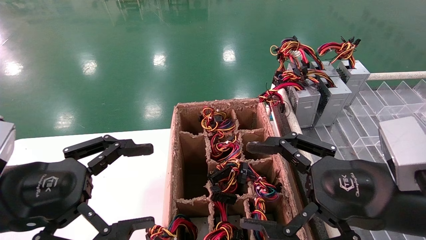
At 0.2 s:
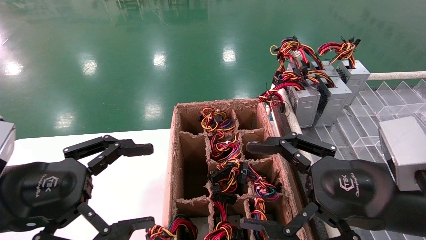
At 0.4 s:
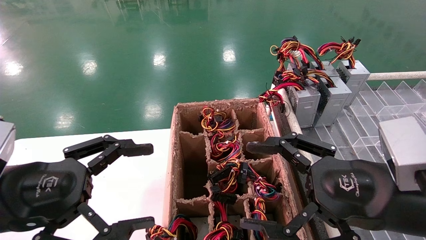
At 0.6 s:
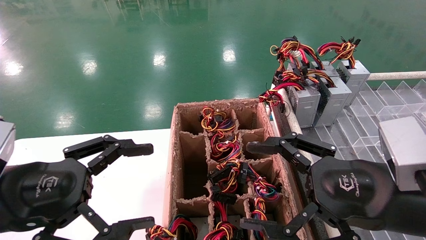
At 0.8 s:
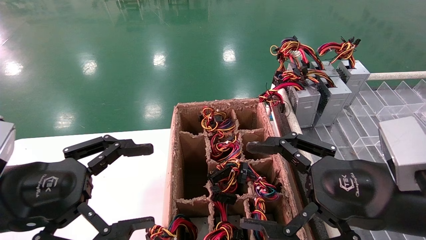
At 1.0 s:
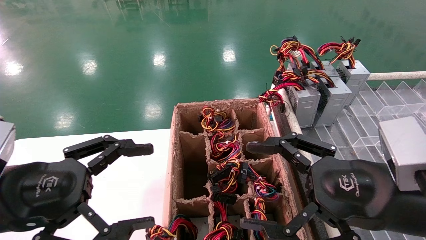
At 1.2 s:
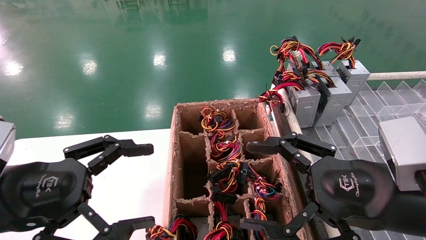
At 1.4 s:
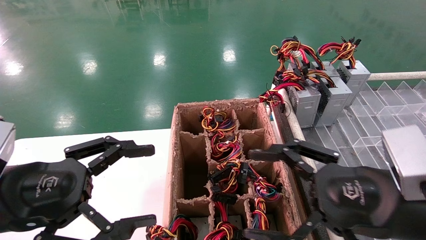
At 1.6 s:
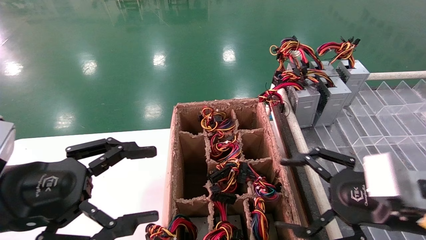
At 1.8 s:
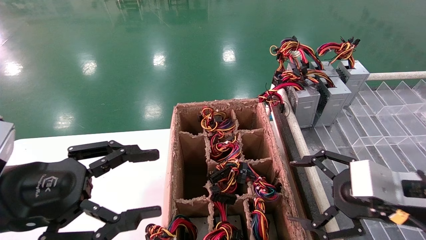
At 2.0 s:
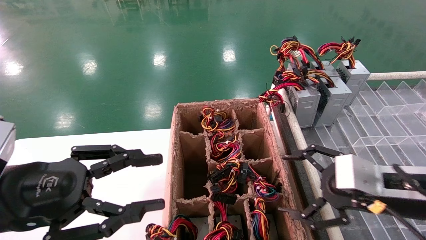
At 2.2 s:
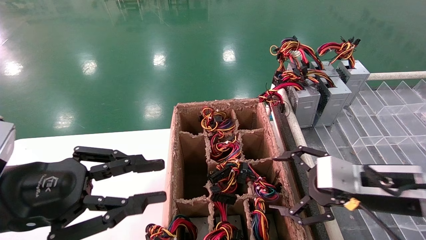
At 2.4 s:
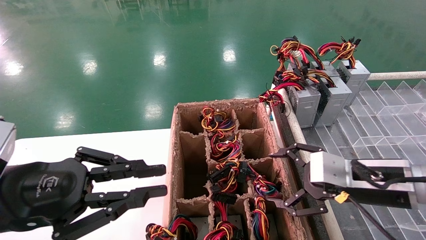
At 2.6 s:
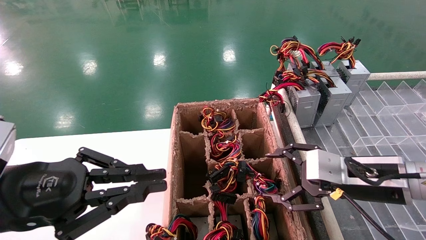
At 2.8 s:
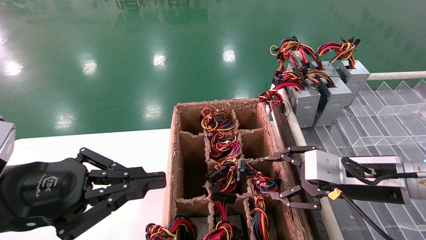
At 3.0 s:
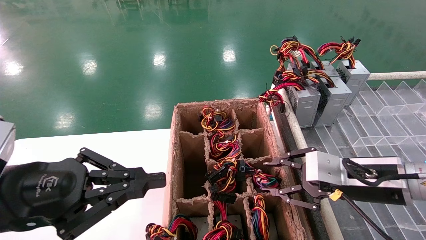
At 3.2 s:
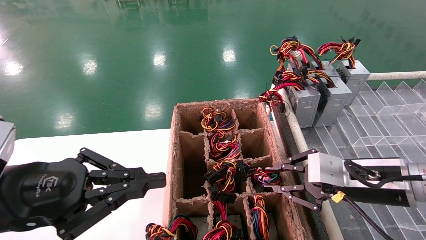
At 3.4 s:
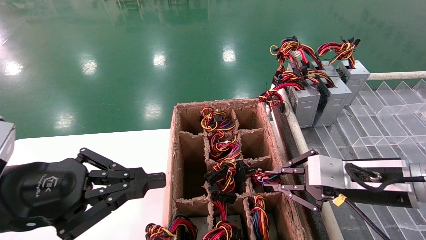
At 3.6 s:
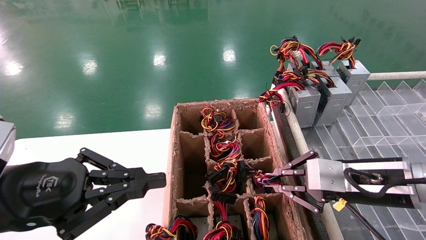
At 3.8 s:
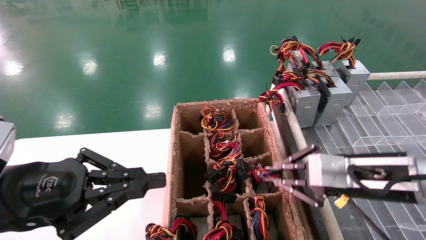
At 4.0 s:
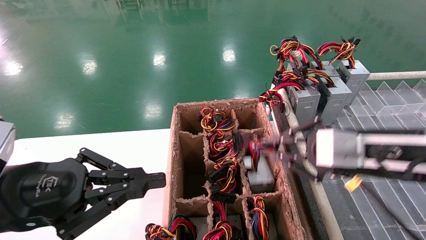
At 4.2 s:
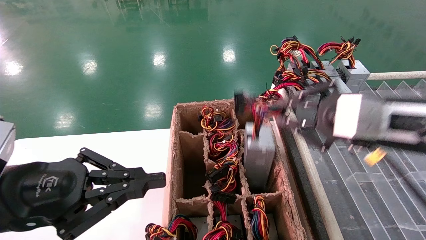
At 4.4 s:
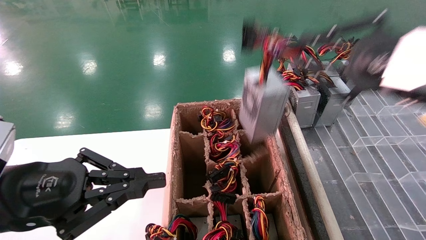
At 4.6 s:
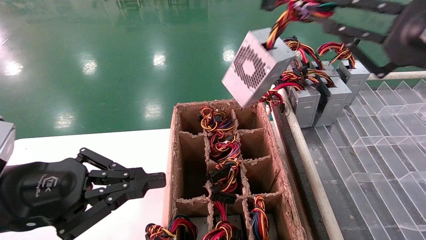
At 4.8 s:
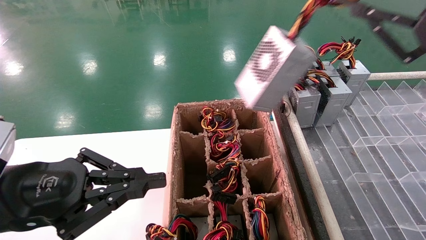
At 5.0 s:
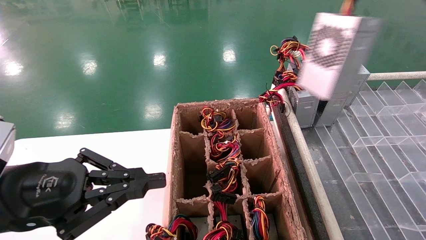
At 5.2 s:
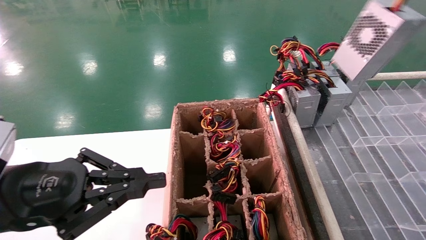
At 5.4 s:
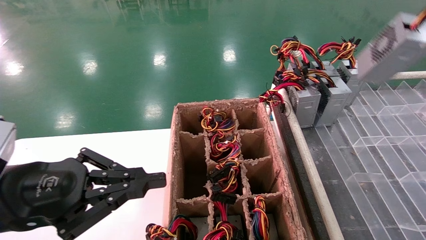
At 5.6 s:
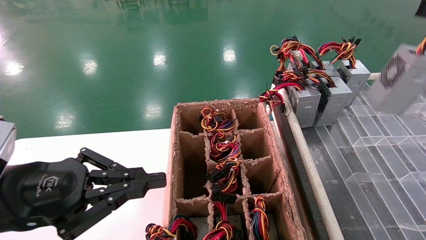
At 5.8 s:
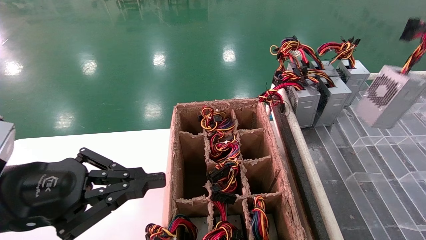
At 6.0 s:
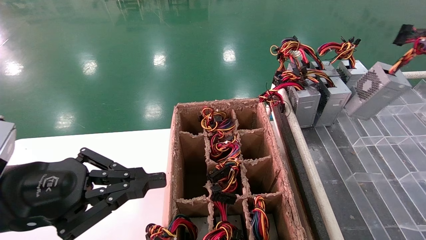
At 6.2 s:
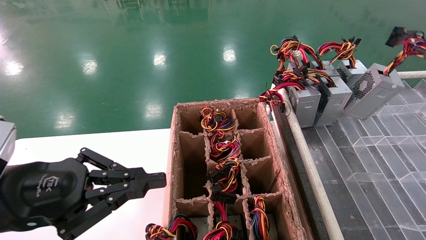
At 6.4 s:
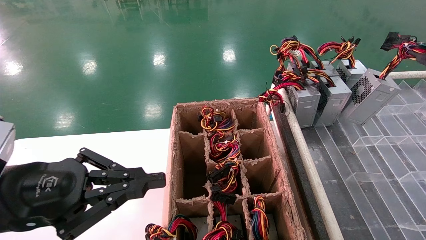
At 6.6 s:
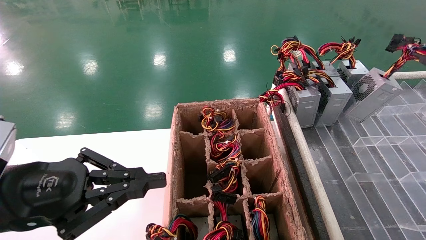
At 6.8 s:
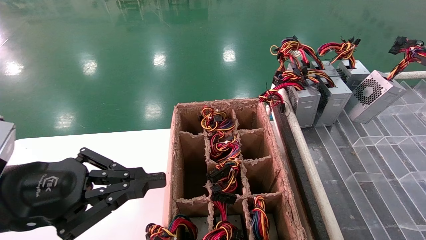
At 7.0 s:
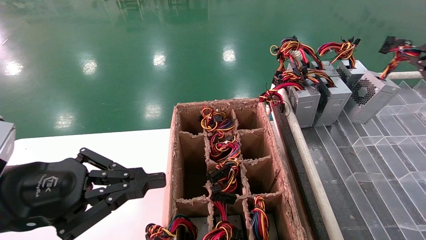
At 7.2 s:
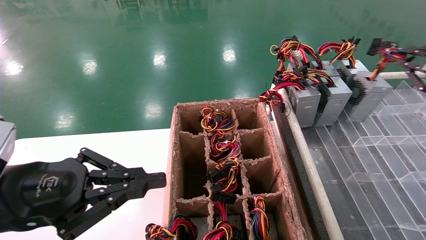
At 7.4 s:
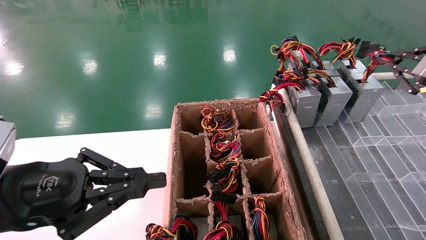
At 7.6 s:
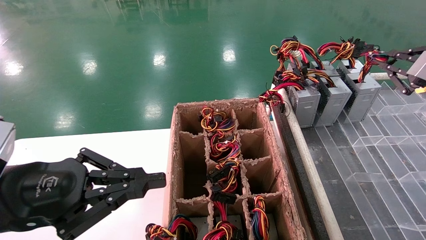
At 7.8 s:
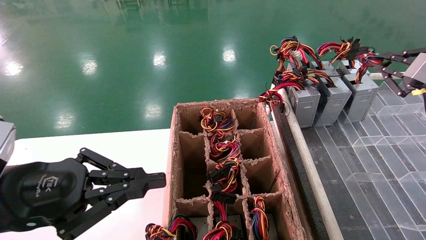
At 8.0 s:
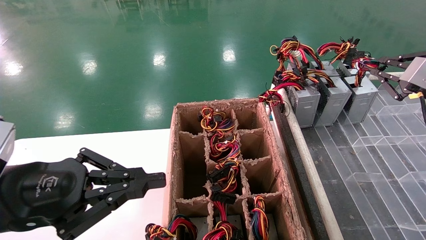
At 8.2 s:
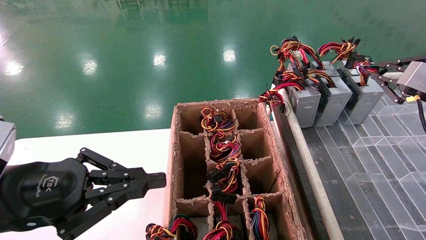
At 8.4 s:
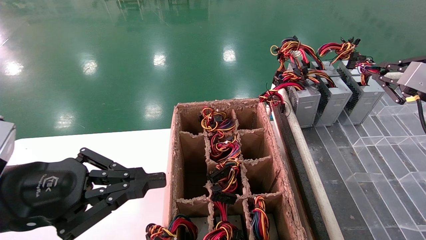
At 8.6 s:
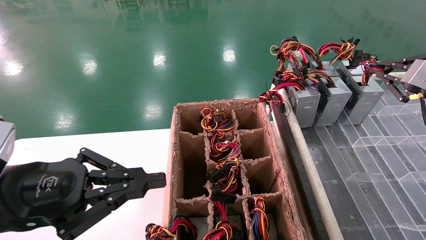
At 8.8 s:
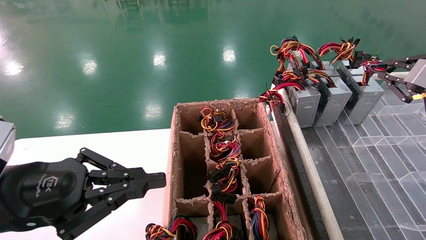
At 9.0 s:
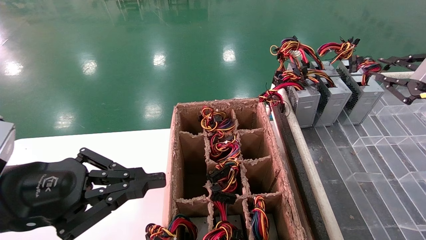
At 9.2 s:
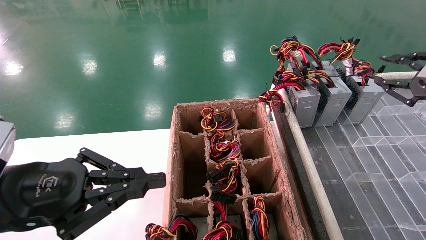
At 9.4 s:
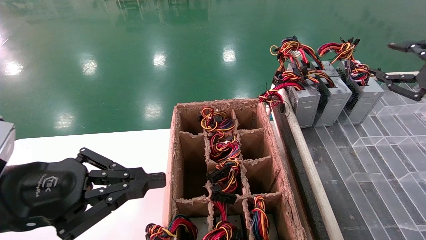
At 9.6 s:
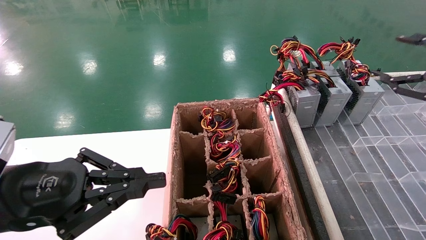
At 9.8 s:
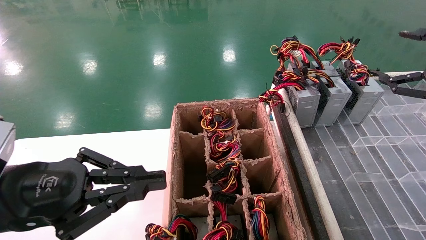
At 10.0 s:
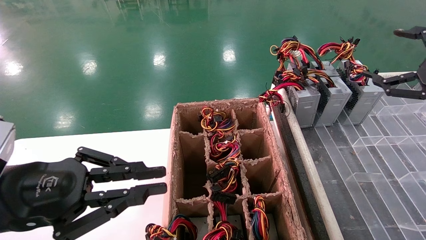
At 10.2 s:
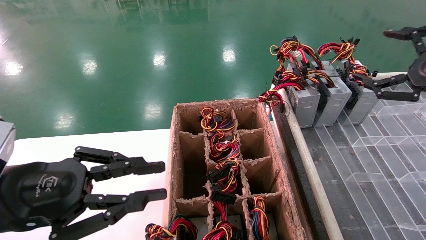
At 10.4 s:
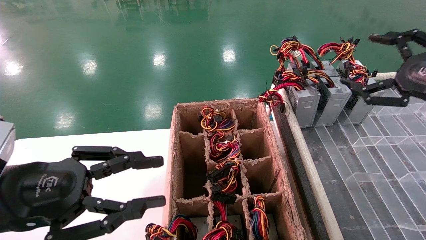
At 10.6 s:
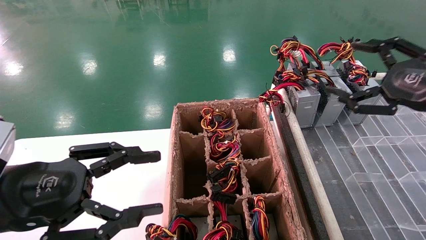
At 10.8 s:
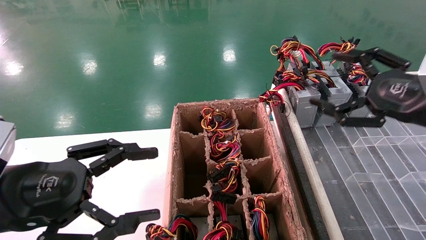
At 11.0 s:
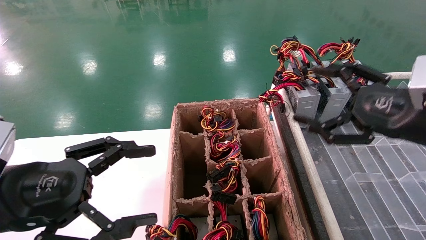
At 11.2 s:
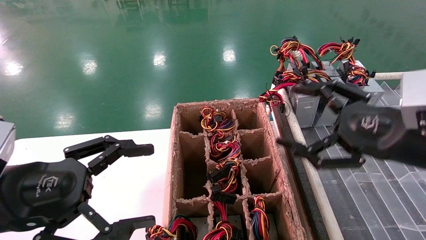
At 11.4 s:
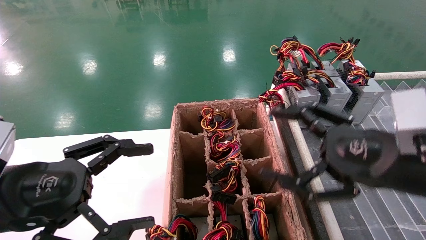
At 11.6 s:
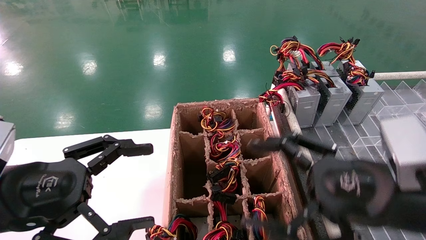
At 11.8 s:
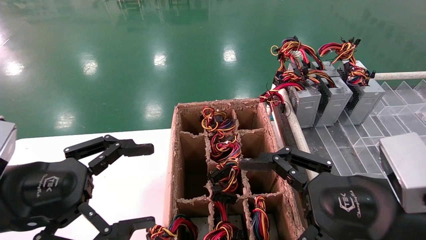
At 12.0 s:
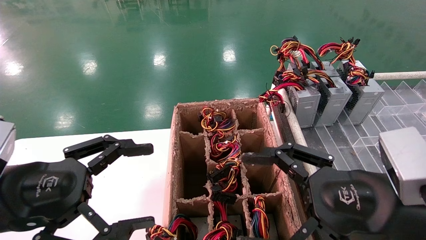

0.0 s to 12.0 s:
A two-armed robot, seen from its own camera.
Step, 1.6 to 3.6 s: Grab the main unit power supply from the containment box.
Step, 3.8 to 9.2 s: Place the main unit power supply in the designated area.
0.0 to 1.6 s: The right gripper moves some 5 cm.
1.6 to 3.0 s: The right gripper is displaced forward by about 5 cm, and closes up. The left gripper closes its fingers.
3.0 to 4.4 s: The right gripper heads upward and backward, covering some 15 cm, and closes up.
4.4 to 6.0 s: The right gripper travels to the right by roughly 20 cm.
6.0 to 7.6 s: The right gripper shifts about 10 cm forward.
7.6 to 9.0 s: The grippers stay close to where they were, moving slightly.
9.0 to 10.4 s: The right gripper is displaced to the left by some 5 cm, and opens up.
10.4 to 12.0 s: The right gripper moves to the left, backward and downward, approximately 25 cm. The left gripper opens.

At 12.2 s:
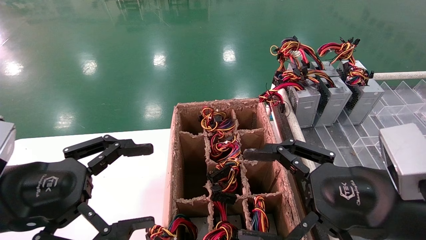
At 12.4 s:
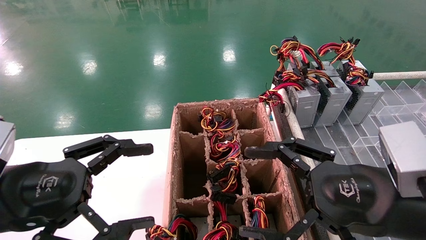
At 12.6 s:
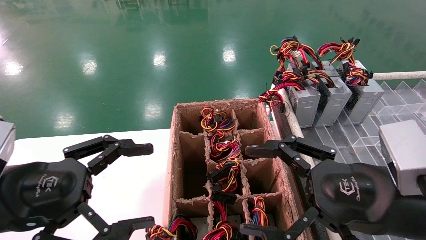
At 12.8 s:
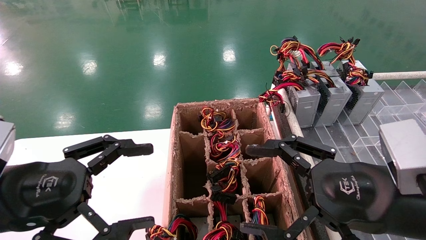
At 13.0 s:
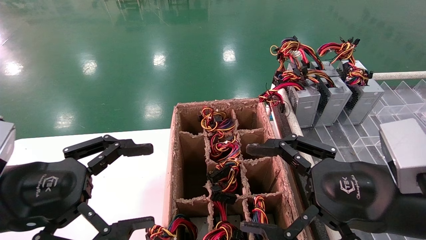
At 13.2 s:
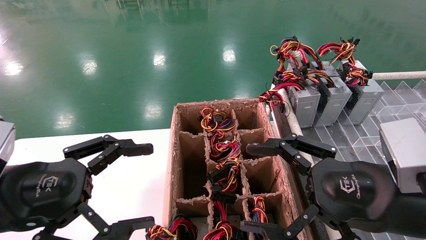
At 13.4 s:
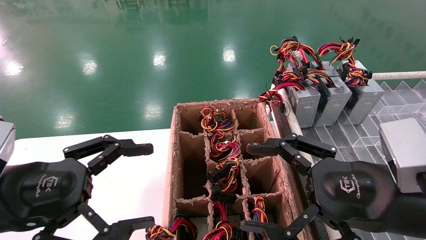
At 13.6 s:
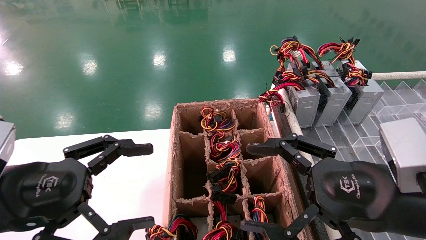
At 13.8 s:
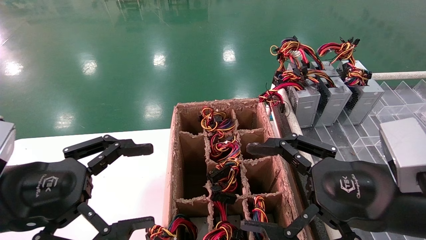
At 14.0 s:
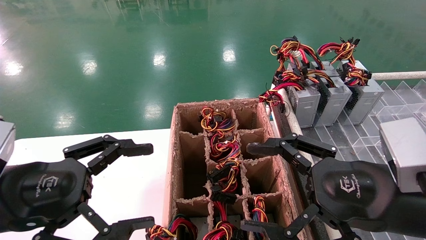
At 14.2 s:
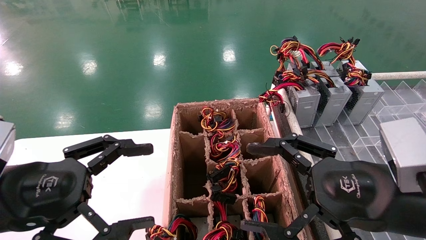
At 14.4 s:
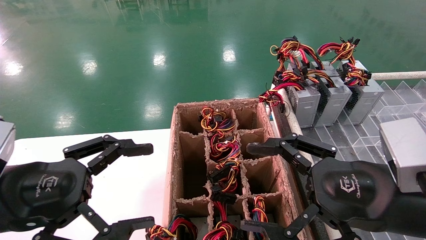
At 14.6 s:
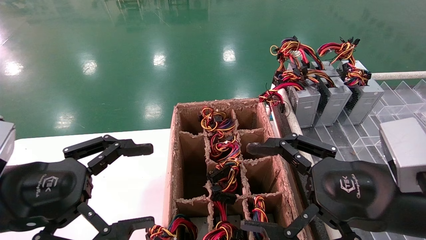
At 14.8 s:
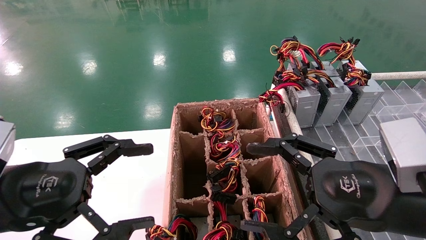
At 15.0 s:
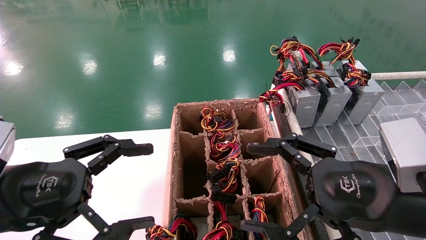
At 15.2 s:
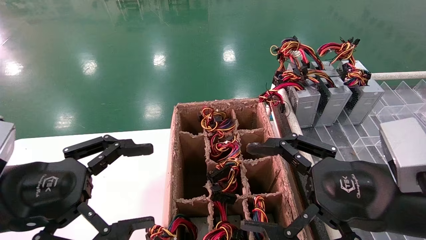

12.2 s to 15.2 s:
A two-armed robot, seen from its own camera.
12.2 to 15.2 s: Both grippers stay about where they are.
